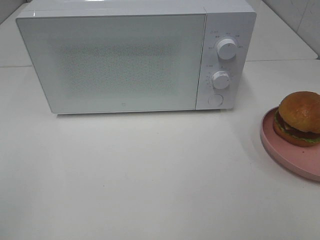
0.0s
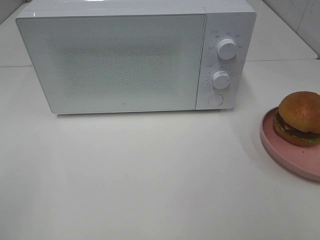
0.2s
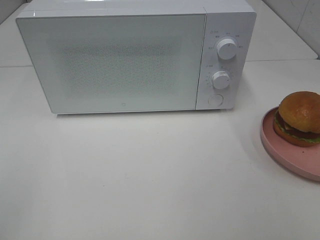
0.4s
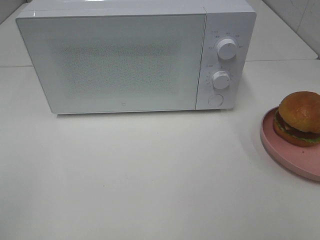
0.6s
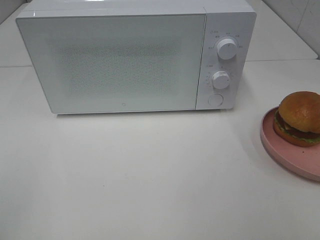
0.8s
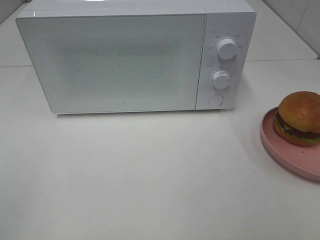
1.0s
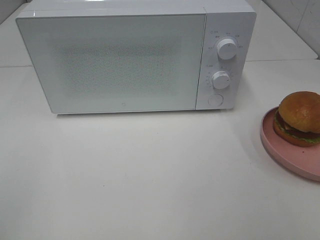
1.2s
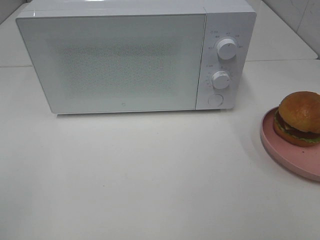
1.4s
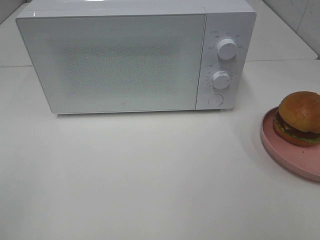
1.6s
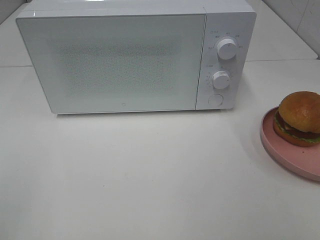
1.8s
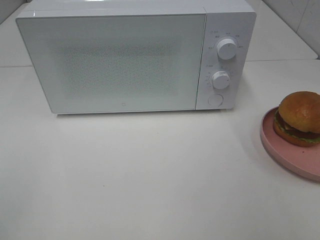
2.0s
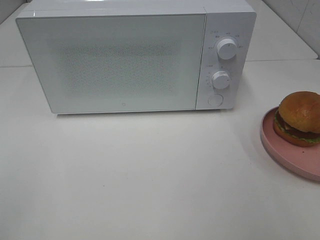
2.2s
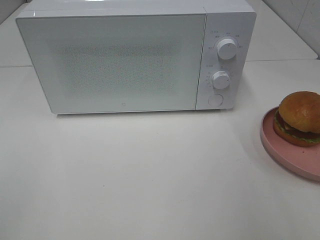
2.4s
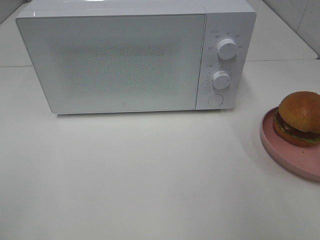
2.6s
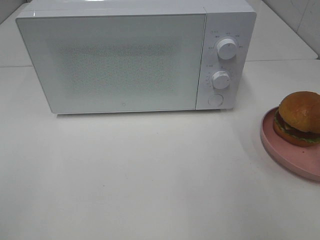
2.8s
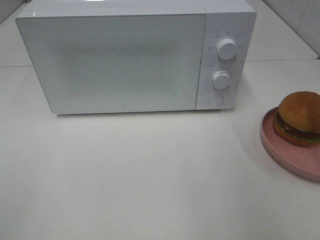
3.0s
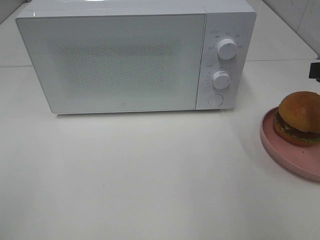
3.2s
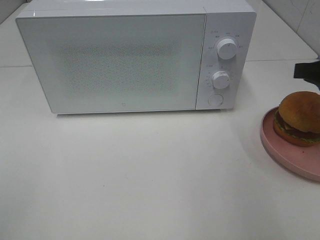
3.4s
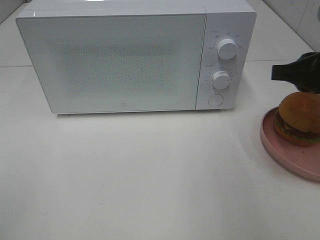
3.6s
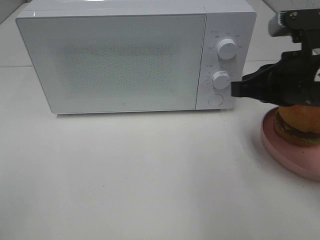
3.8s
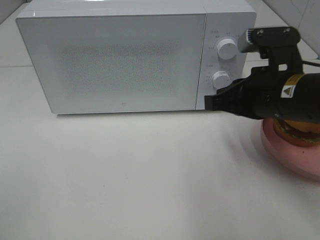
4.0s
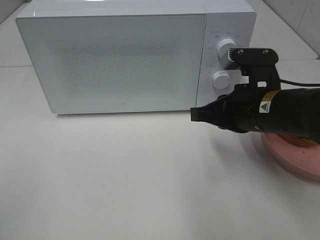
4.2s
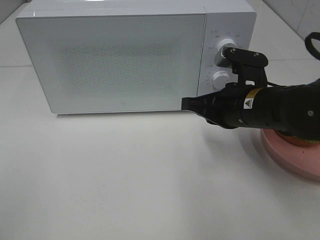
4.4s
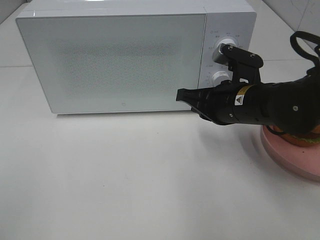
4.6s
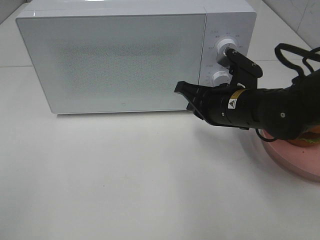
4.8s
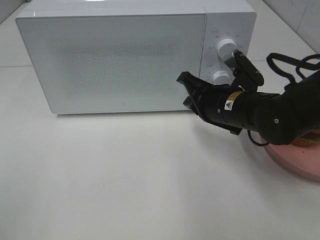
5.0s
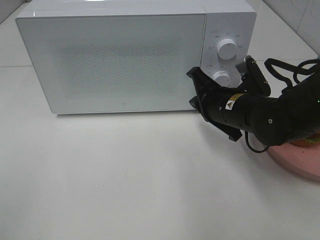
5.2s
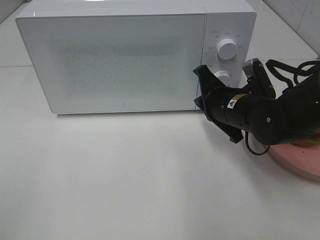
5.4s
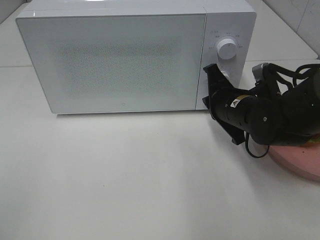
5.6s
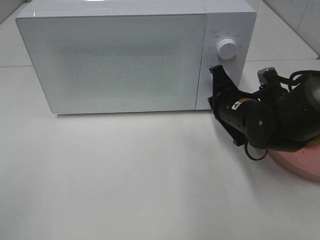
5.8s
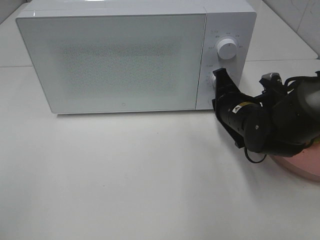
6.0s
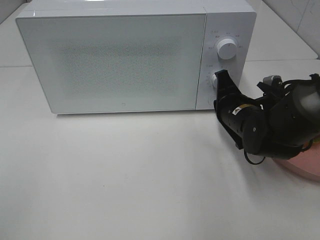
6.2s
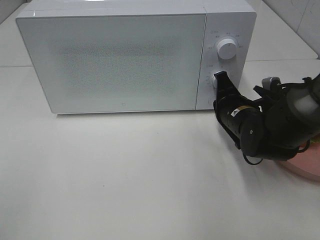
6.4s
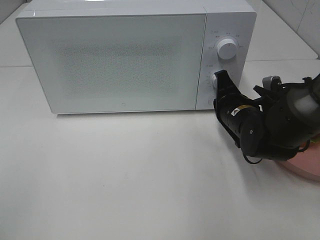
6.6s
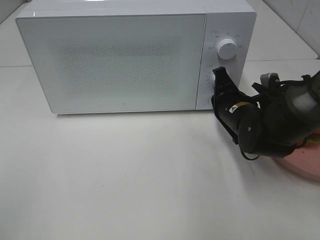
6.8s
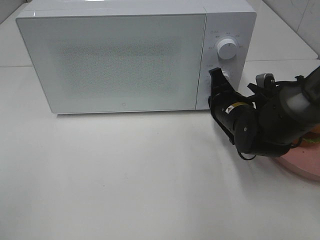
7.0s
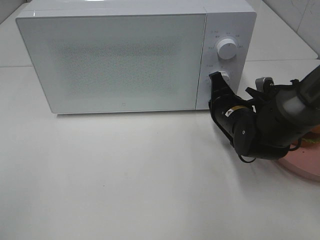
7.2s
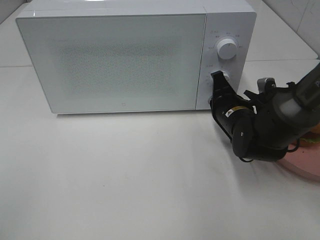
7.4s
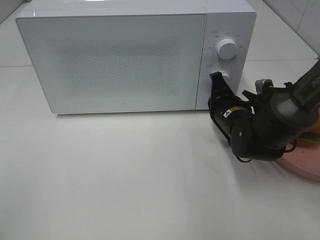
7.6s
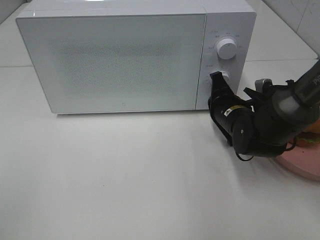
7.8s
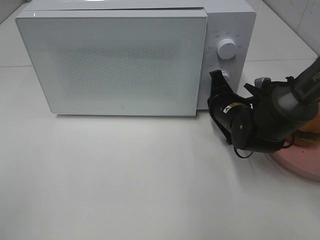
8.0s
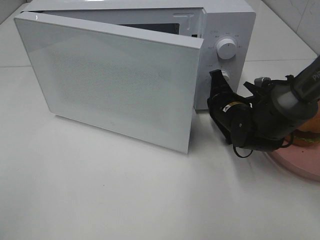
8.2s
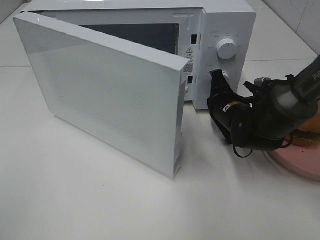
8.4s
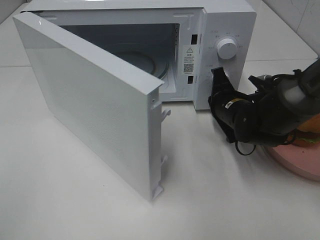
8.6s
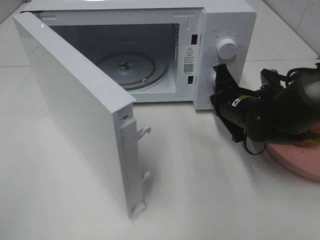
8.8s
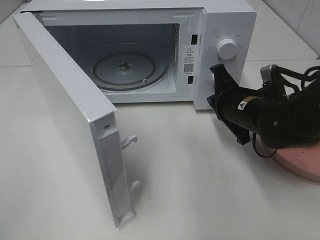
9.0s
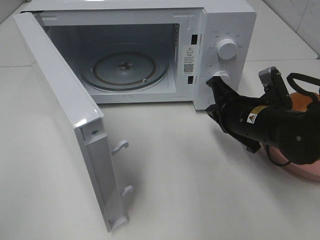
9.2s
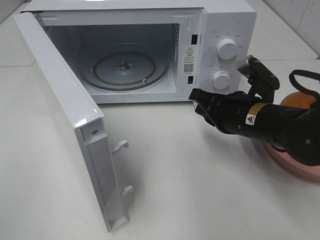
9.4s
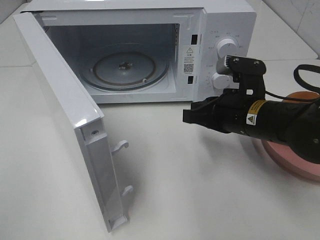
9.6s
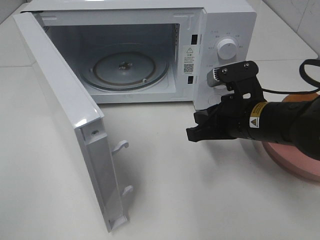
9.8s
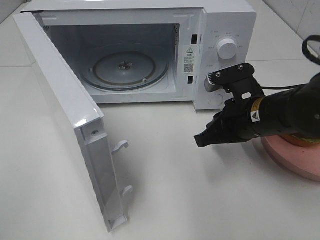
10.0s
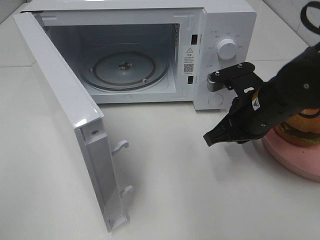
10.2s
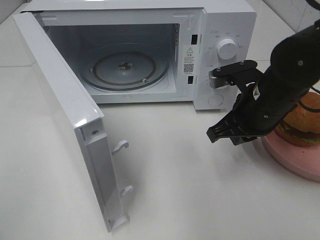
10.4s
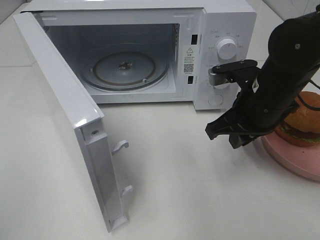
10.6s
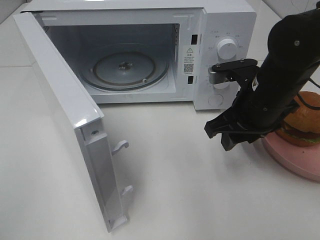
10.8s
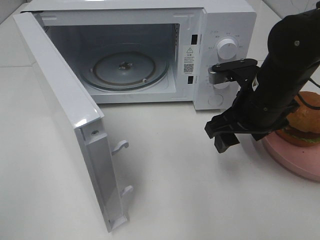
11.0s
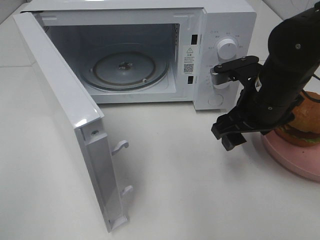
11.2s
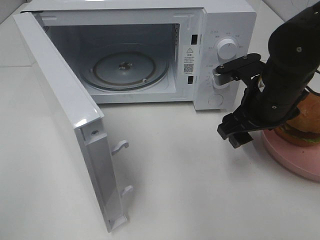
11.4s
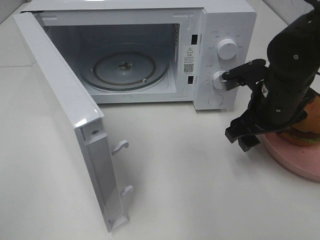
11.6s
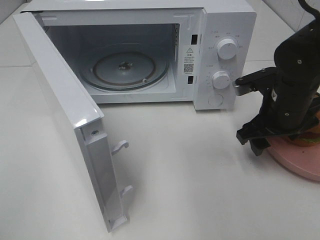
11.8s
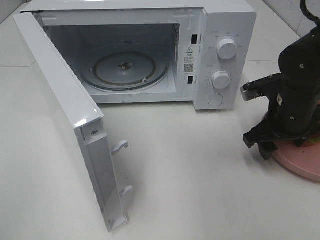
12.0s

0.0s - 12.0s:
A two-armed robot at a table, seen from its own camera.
Task of the whole recording: Heat the burger.
Step, 0.0s - 8.8s: Right hand: press the switch.
0.0s - 1.6s: The two grippers keep their place.
3.0s - 4.4s: The right gripper goes roughly 20 cm to the left, downward and forward, and closes its fingers.
4.4s - 6.0s: The right gripper travels downward by roughly 5 cm.
6.0s - 7.6s: There are only small adjustments of the grippers.
9.0s - 10.4s: The right gripper moves roughly 5 cm.
10.4s - 12.0s: The right gripper heads to the right, covering roughly 5 cm, and opens up.

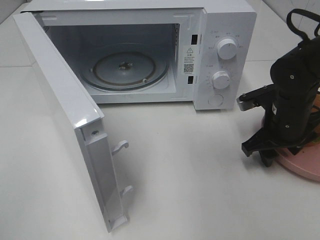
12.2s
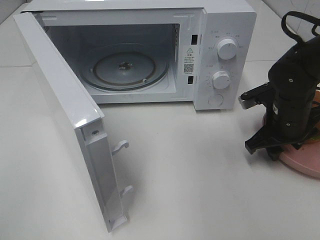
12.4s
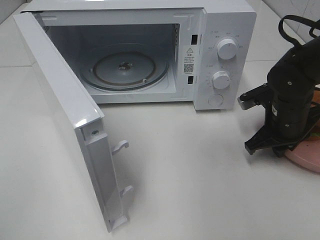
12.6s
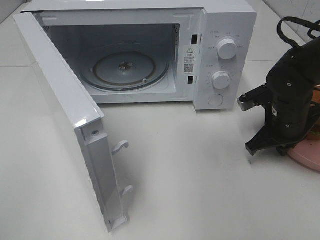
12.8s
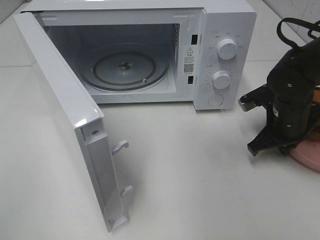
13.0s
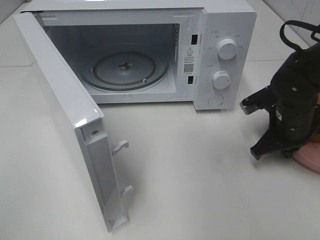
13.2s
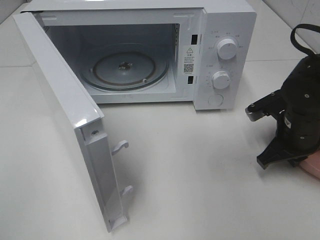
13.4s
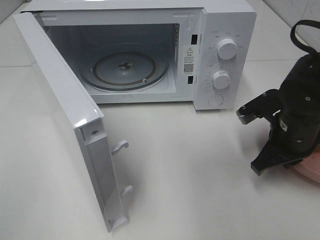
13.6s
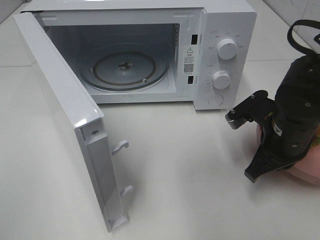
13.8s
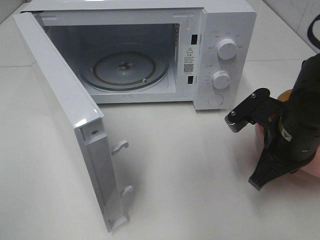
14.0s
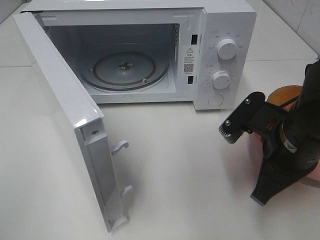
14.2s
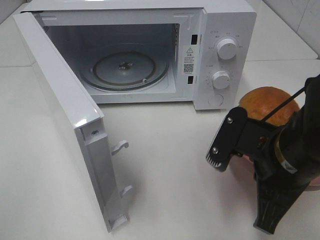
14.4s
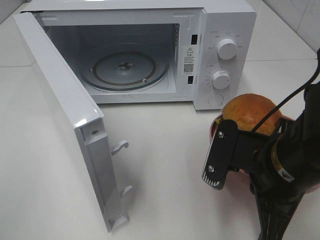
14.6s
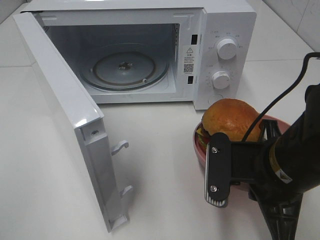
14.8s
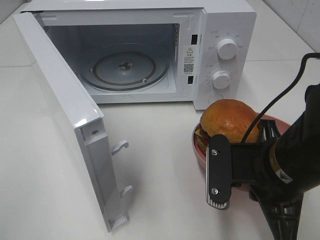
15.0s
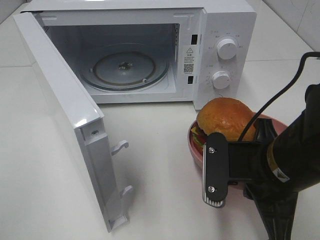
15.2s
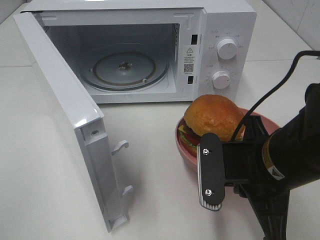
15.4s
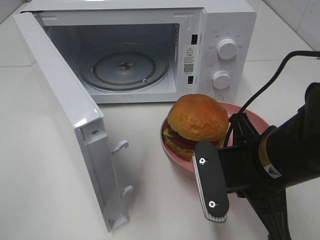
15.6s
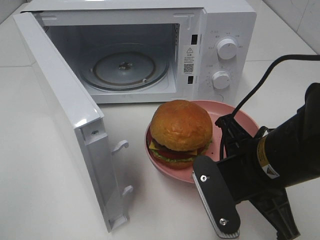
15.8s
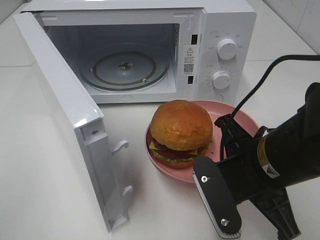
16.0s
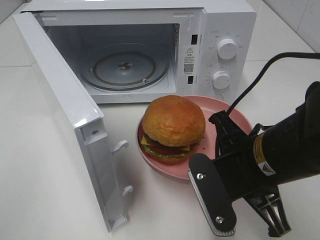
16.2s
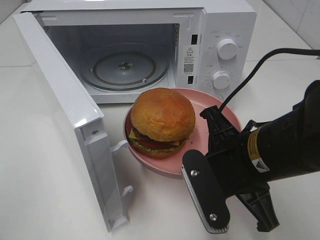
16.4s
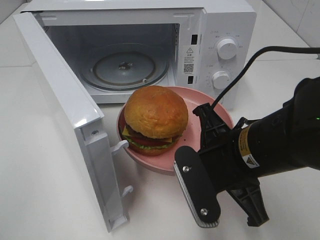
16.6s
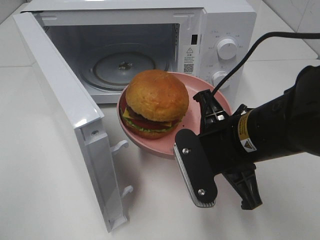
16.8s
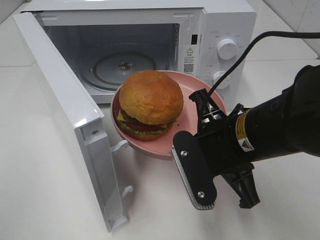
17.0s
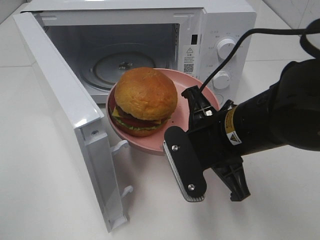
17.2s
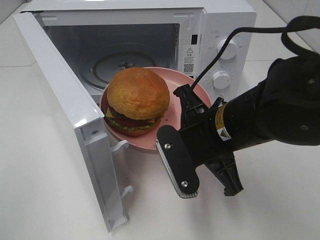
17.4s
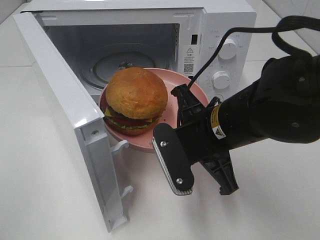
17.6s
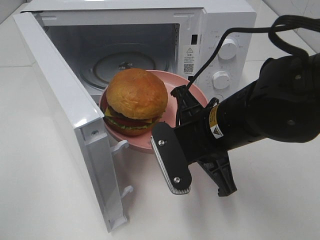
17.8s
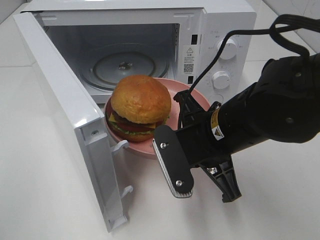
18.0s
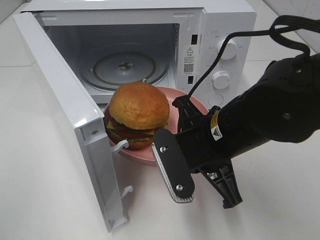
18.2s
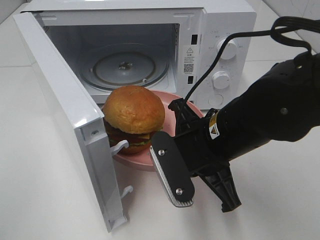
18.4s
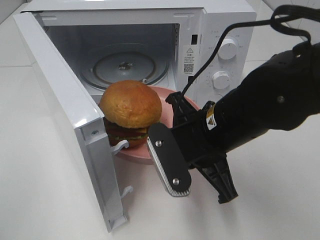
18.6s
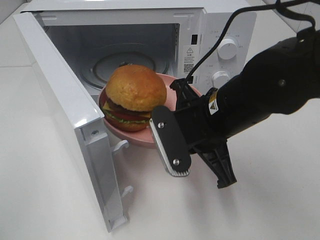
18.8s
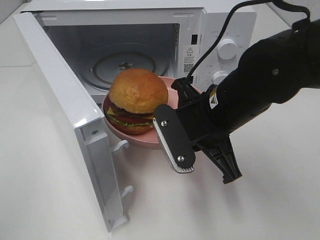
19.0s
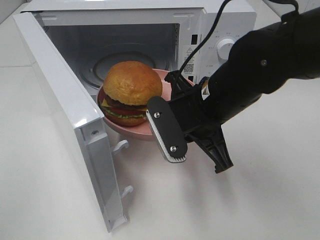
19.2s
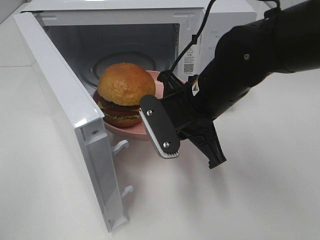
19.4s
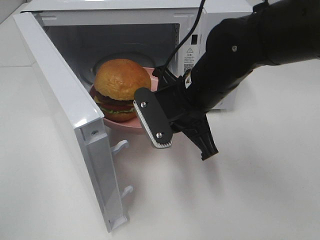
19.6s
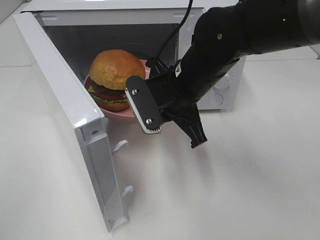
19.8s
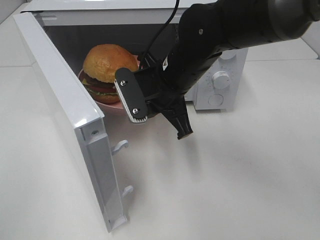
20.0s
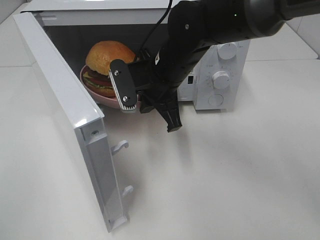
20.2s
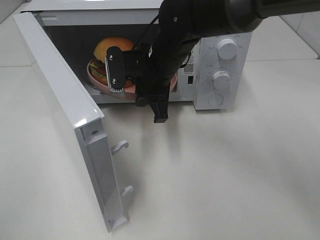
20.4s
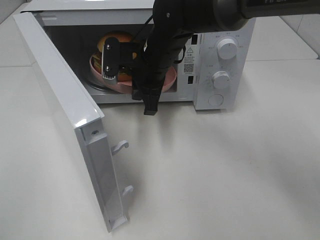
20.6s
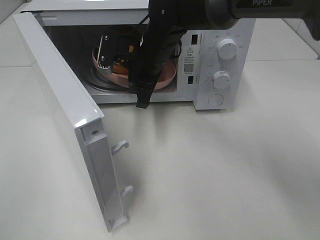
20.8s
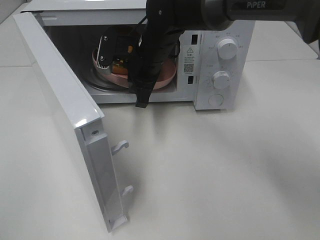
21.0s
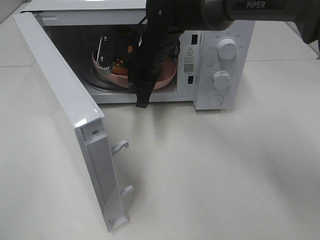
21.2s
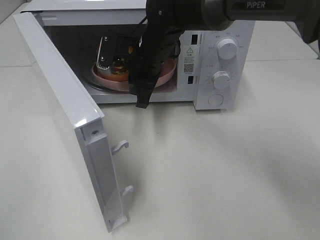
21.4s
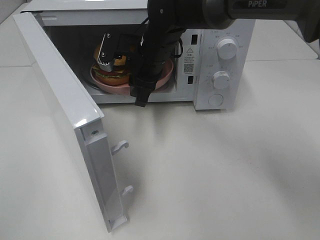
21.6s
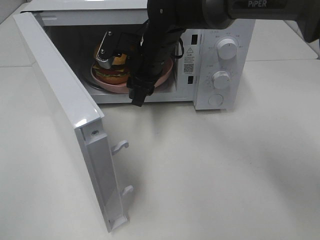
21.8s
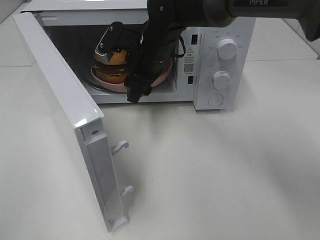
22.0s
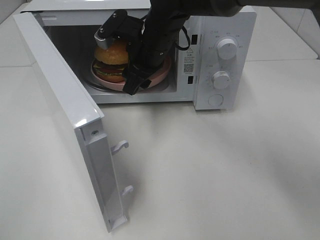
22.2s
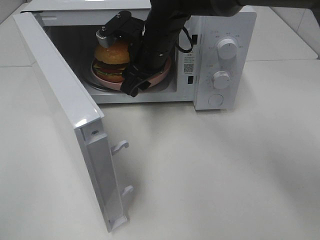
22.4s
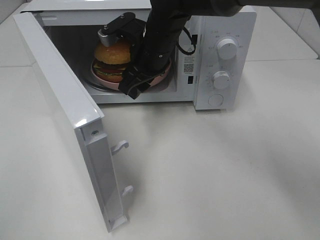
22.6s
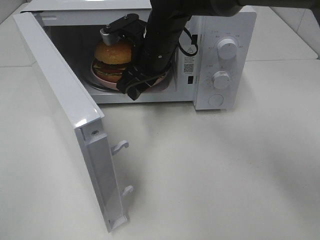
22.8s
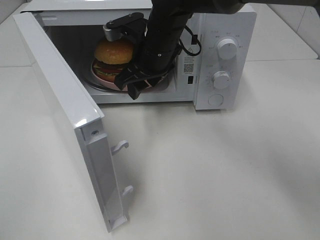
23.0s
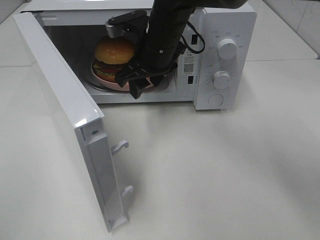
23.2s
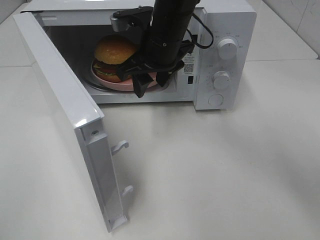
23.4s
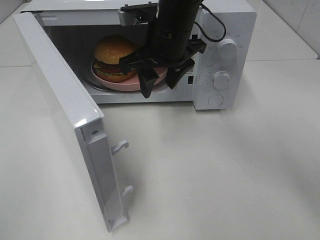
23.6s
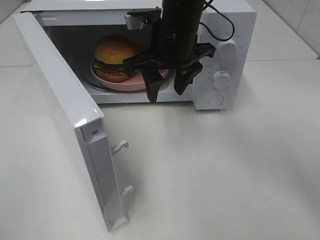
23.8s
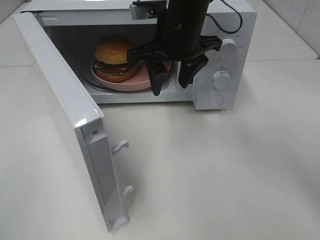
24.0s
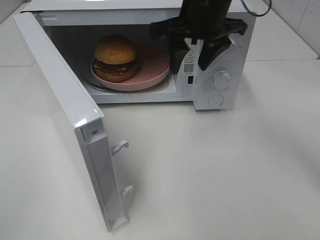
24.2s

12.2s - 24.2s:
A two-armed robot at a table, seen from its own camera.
Task of the whole recording: Heat the burger.
Step, 13.0s - 21.8s: Right hand: place the plate in the microwave.
12.2s - 13.8s: The right gripper shifts about 5 cm backward, and closes up.
13.8s - 15.2s: The right gripper heads backward and to the left, covering some 10 cm.
18.2s - 19.8s: The right gripper is displaced forward by about 10 cm.
19.8s - 21.2s: The right gripper moves forward and to the left, about 10 cm.
21.2s - 22.6s: The right gripper opens up.
22.6s - 24.2s: The right gripper is displaced upward and to the right by some 15 cm.
